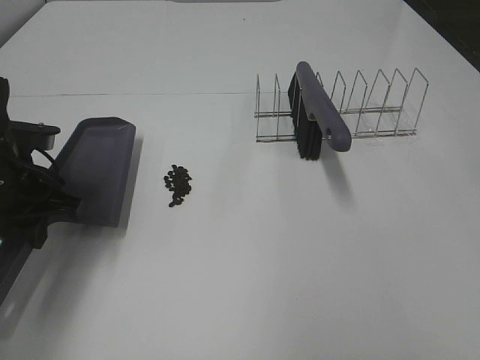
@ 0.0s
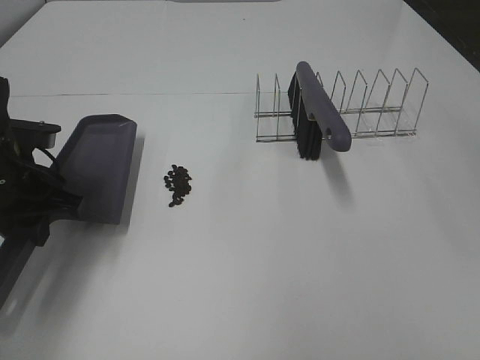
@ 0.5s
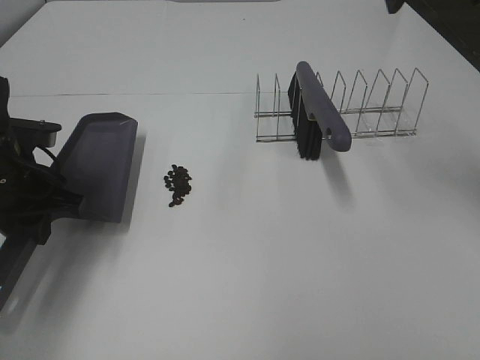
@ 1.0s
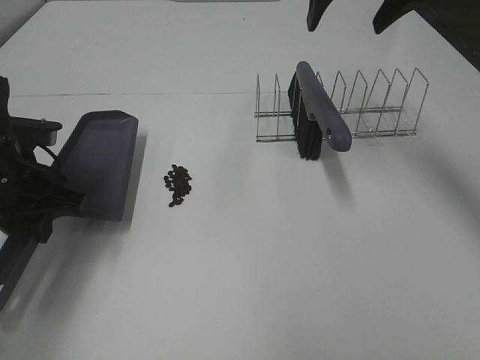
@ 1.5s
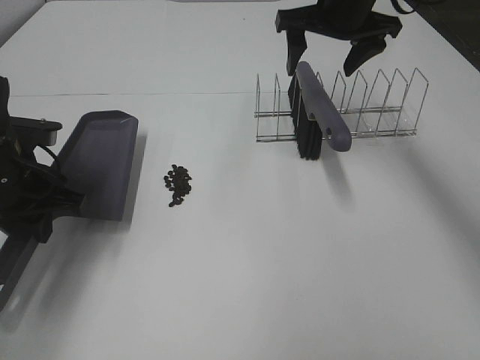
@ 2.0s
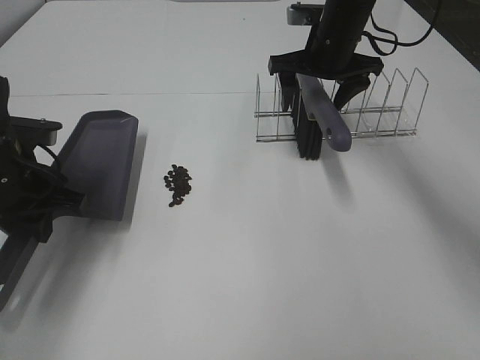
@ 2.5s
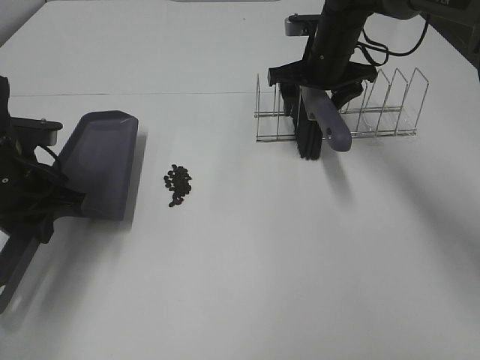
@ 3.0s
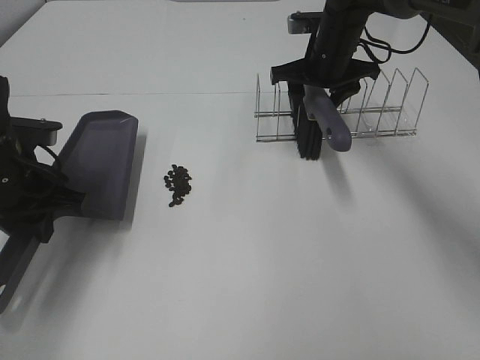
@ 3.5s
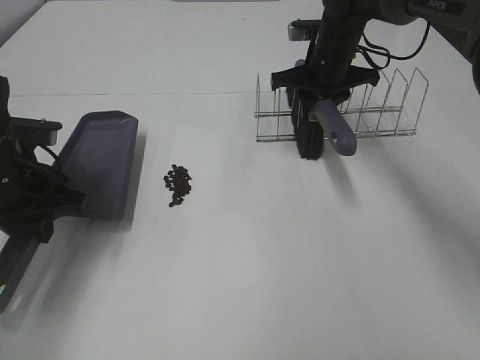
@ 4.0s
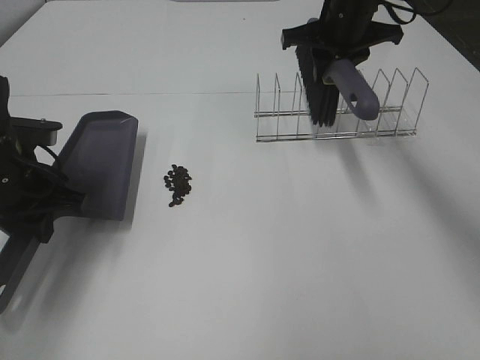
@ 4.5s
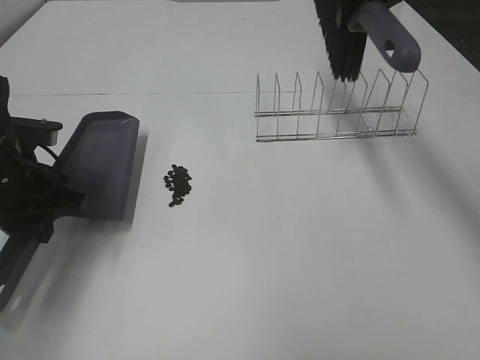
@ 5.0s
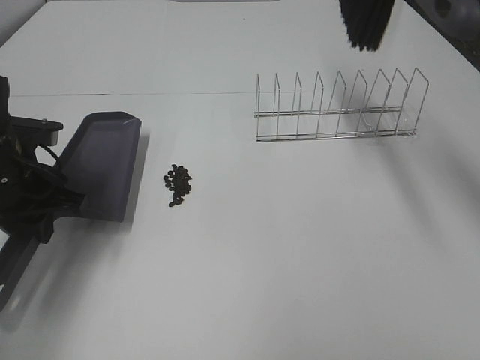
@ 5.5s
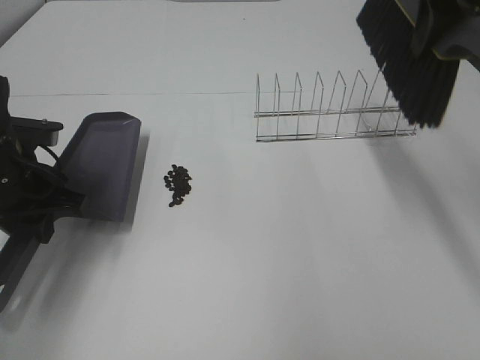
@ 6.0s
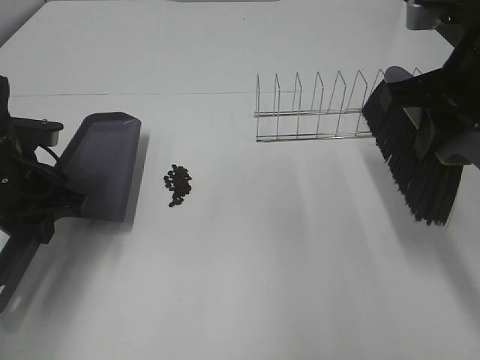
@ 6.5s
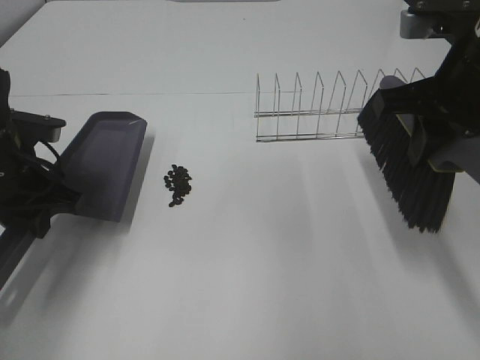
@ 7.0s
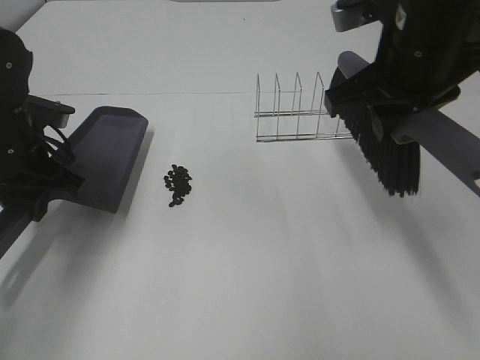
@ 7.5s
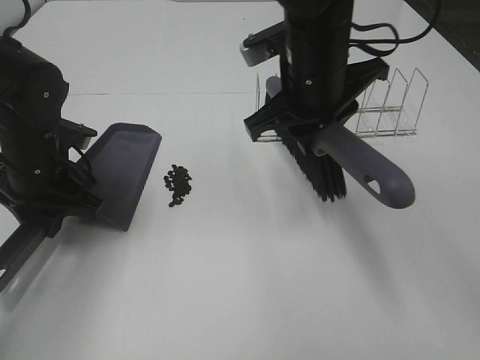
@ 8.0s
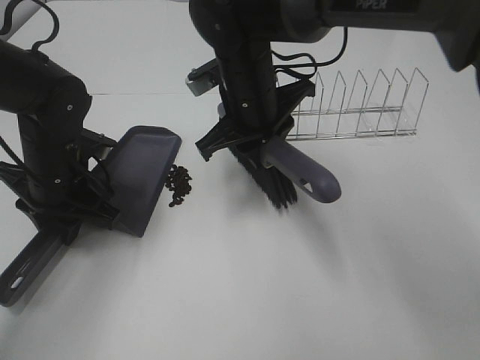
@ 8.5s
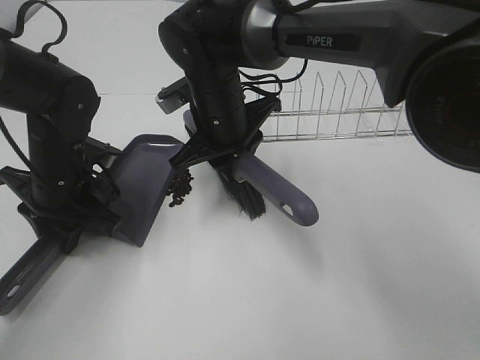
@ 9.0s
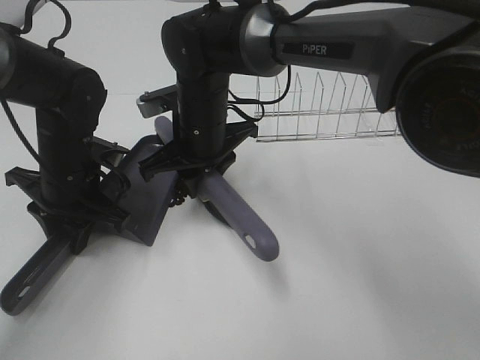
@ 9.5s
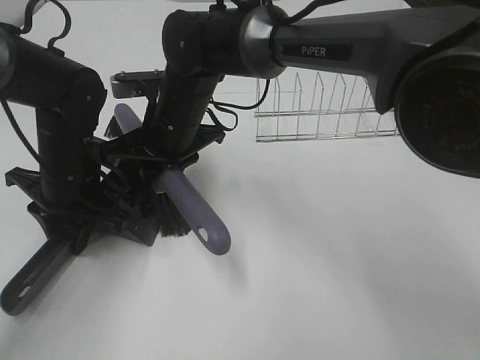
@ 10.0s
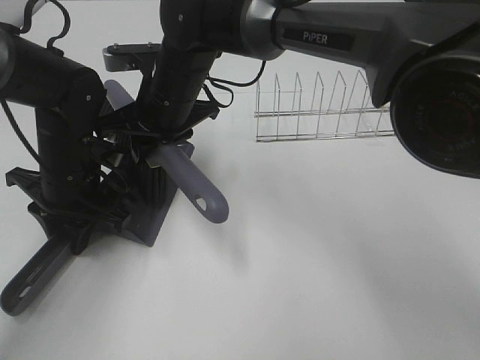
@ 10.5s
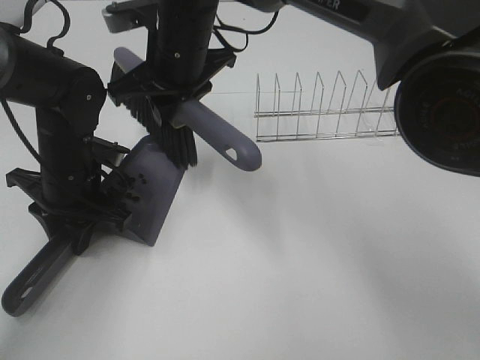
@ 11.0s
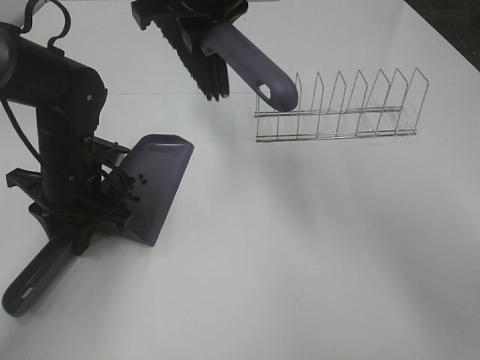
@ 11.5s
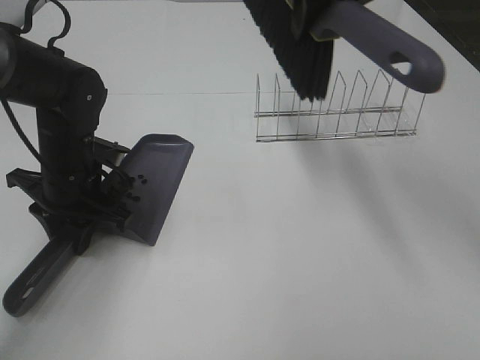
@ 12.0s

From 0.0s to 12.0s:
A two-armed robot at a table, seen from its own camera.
Task of the whole recording: Sweep Coffee Bean.
Step, from 0.0s to 3.5s: Right hand:grab the broom.
Step, from 4.0s to 10.5s: Right hand:sweep the coffee beans into the dustpan.
From 0.0s to 2.0s: The right gripper travels forward and downward by roughly 40 cm.
From 2.0s to 4.0s: The right gripper heads downward, covering roughly 10 cm, and closes its fingers.
From 4.0s to 6.0s: The right gripper travels upward and backward by roughly 25 cm.
From 6.0s to 8.0s: The right gripper heads to the left and downward, covering roughly 20 cm.
From 8.0s to 10.0s: The right gripper moves to the left and downward, about 15 cm.
From 10.0s to 12.0s: The right gripper is displaced upward and to the right by approximately 25 cm.

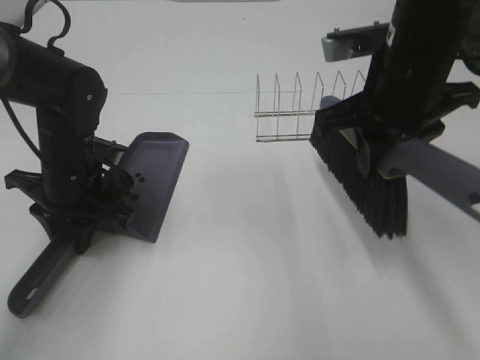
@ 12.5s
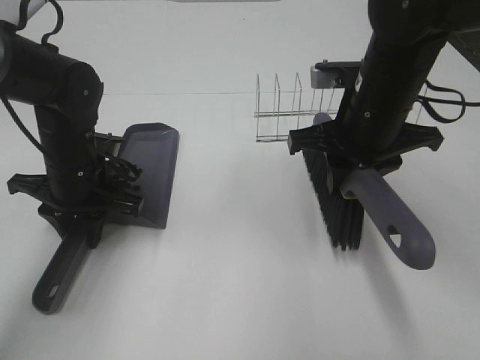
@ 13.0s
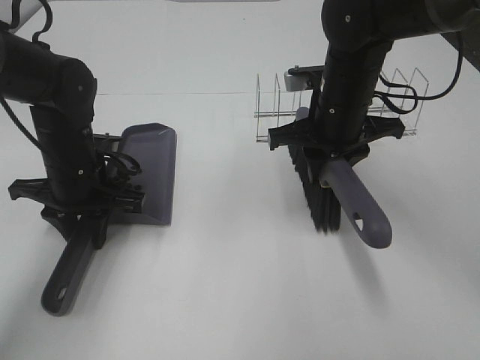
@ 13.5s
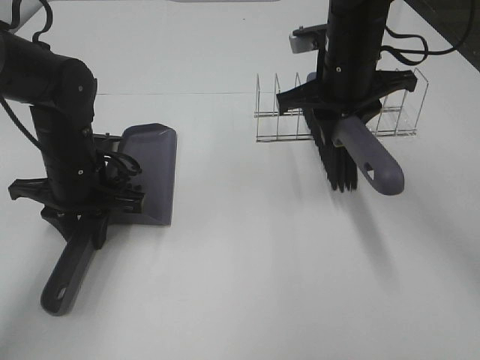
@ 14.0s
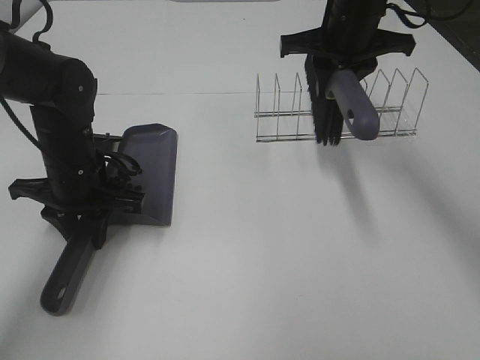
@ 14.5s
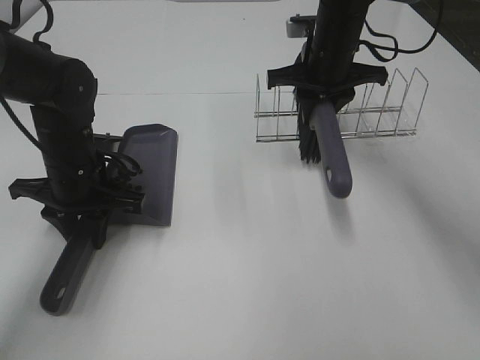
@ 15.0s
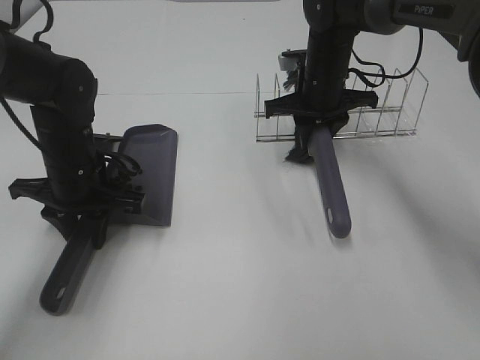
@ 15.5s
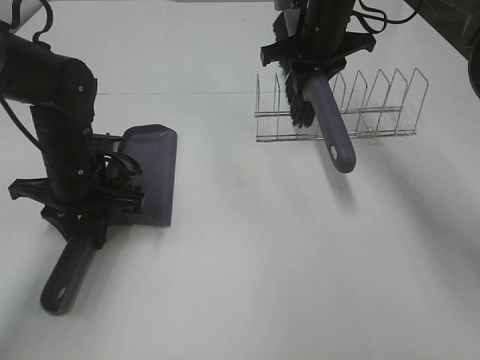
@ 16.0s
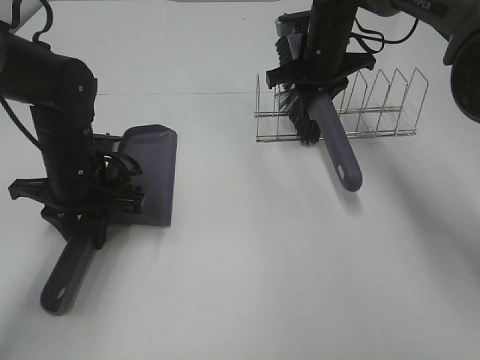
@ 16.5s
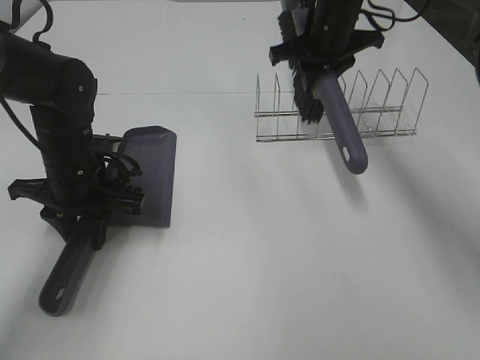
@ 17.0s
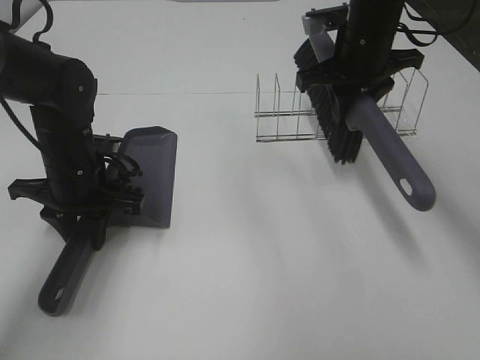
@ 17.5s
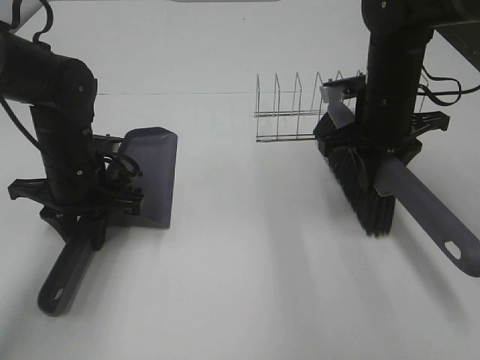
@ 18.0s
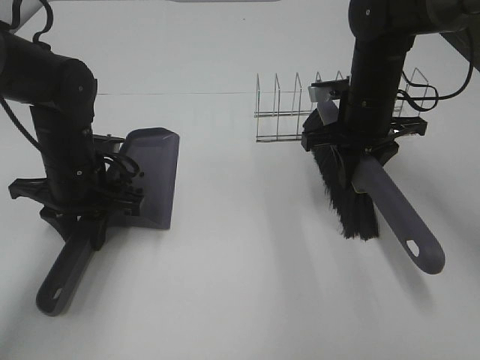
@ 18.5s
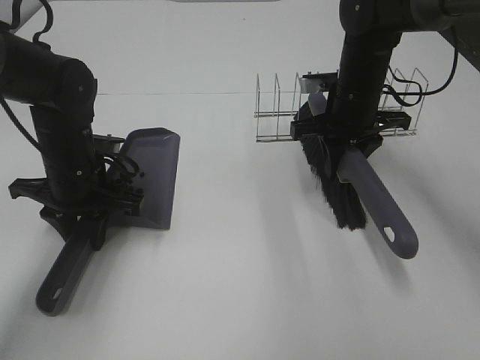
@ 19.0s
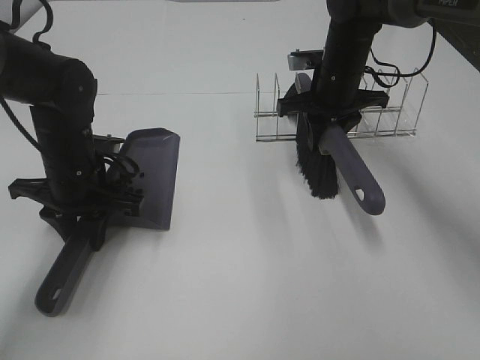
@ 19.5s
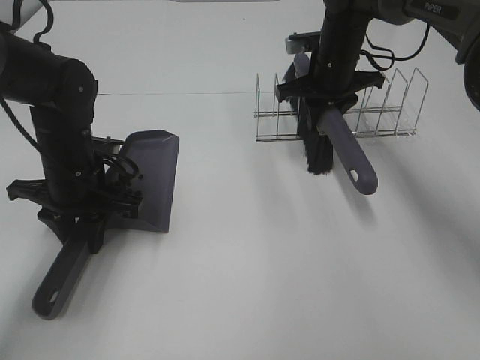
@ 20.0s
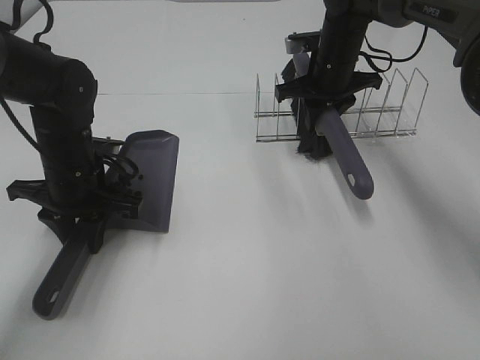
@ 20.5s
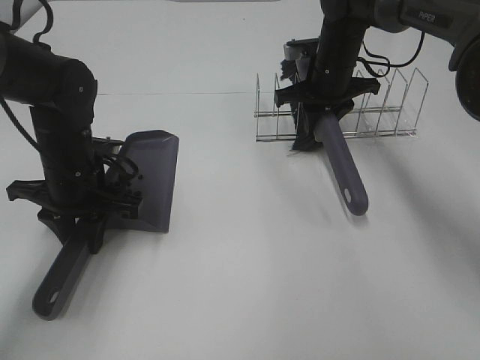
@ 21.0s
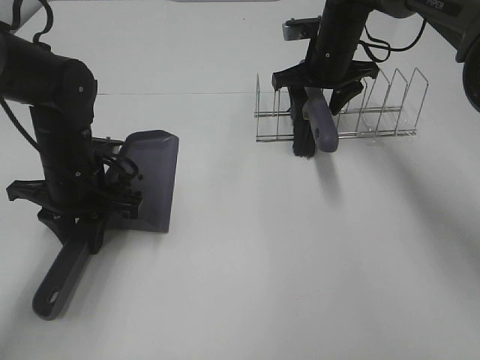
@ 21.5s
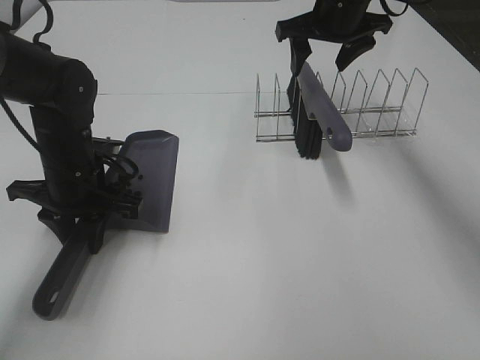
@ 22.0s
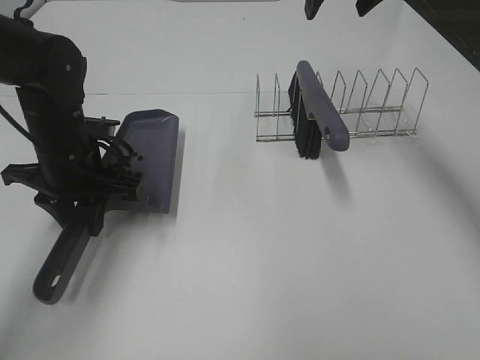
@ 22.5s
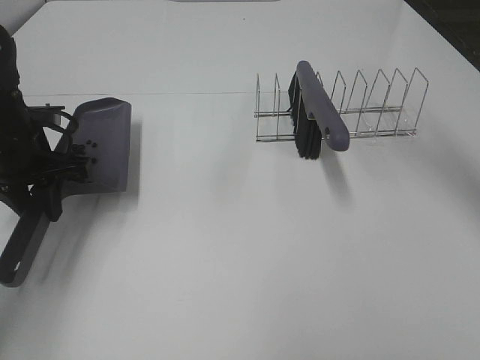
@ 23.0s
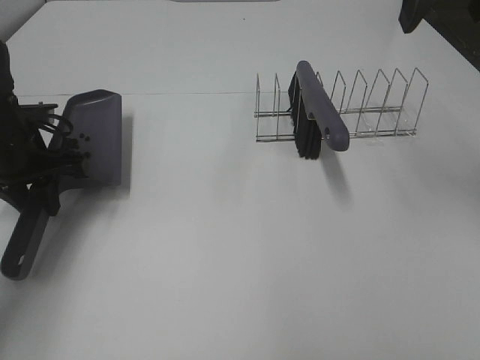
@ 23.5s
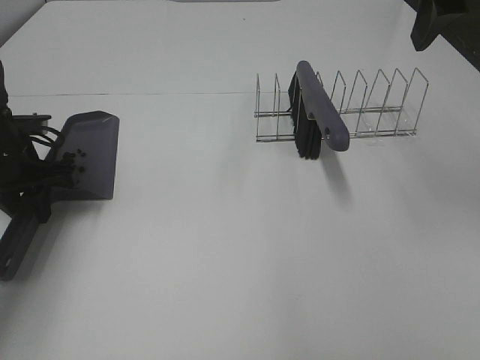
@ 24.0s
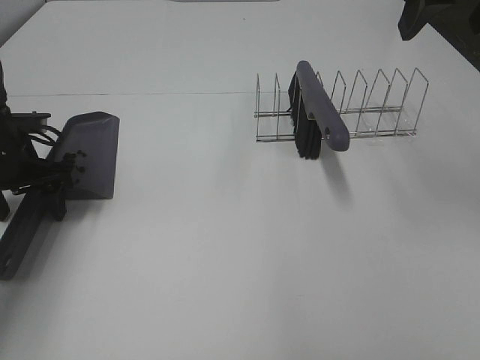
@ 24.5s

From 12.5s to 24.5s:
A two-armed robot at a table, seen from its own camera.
Task of the whole recording: Sweep Coffee Bean.
Step, from 12.5s to 21.5s: Right hand:place the broom on the rack.
From 12.5s to 14.5s: The right gripper travels forward by some 15 cm.
From 14.5s to 16.5s: The right gripper heads downward and forward, covering some 10 cm.
From 16.5s to 18.5s: The right gripper travels backward by roughly 10 cm.
From 18.5s to 20.5s: The right gripper travels forward by about 10 cm.
From 20.5s to 22.5s: The right gripper moves upward, about 20 cm, and opens its fingers.
From 22.5s to 24.5s: The left gripper goes roughly 10 cm to the left, and opens up. Meanwhile the right gripper moves backward, approximately 15 cm.

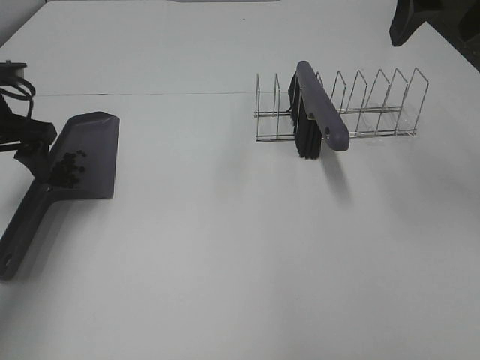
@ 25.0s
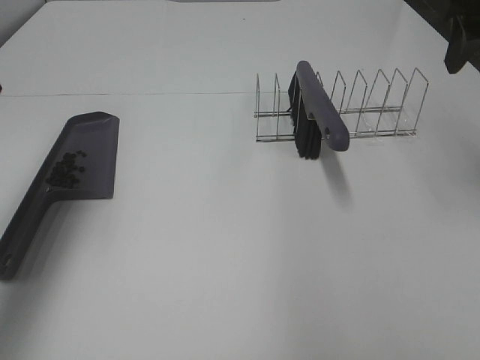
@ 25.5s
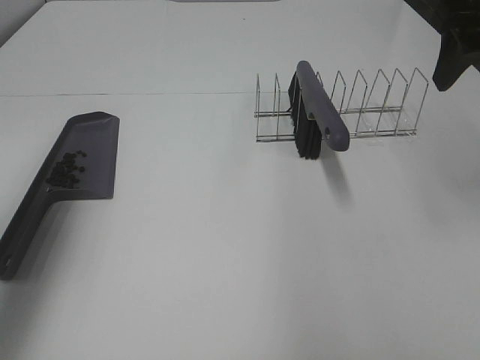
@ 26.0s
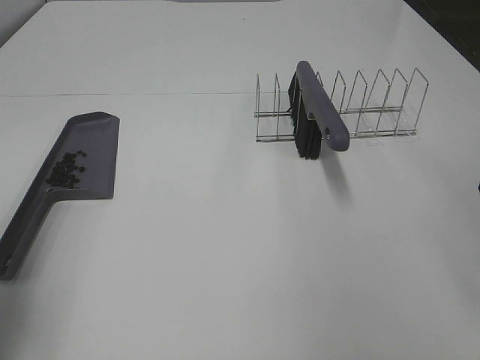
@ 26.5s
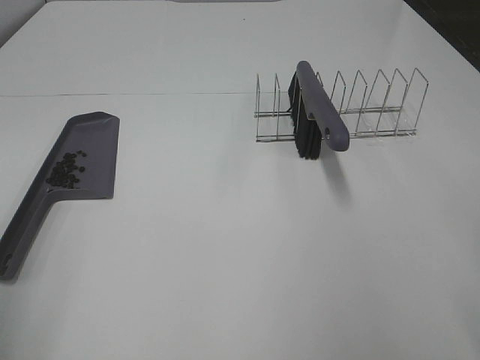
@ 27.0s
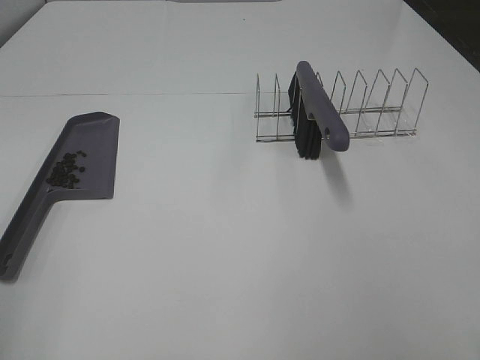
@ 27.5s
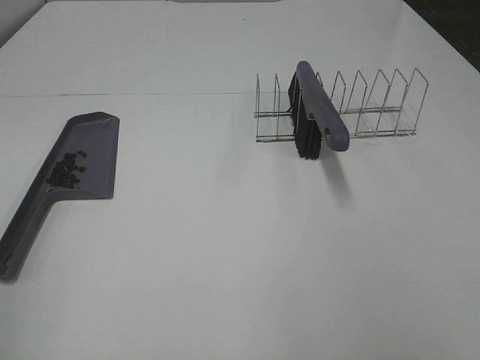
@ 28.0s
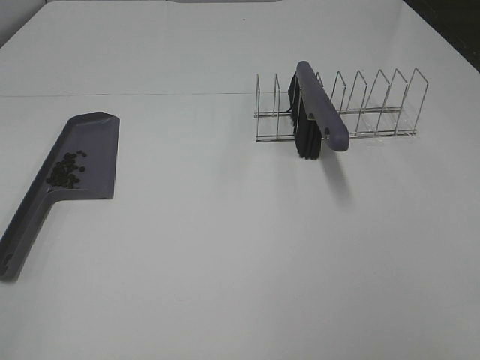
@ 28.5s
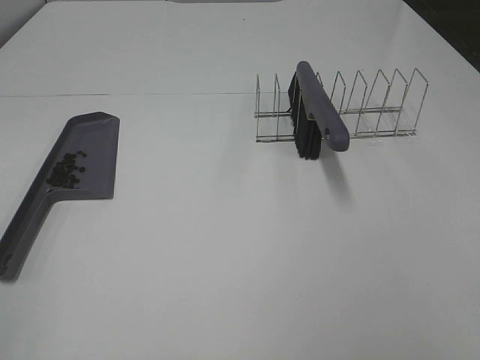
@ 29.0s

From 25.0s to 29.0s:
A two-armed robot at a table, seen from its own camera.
Task of the whole recording: Sweep Coffee Bean.
From 25.0s to 27.0s: The left gripper shifts some 25 cm backward, while the right gripper travels backward and downward by approximately 20 cm.
